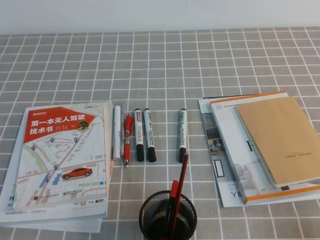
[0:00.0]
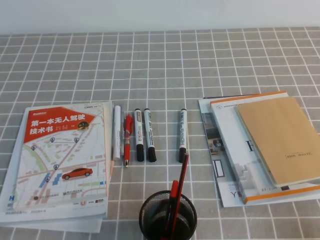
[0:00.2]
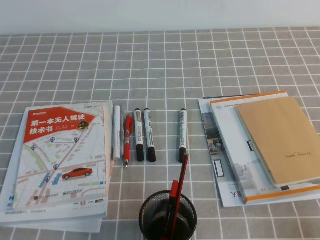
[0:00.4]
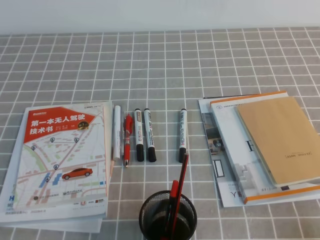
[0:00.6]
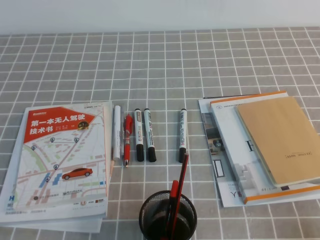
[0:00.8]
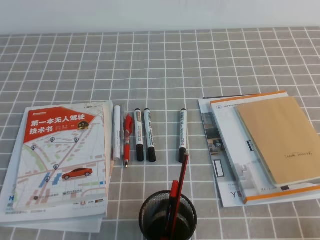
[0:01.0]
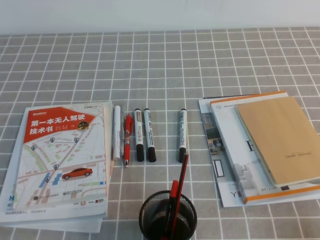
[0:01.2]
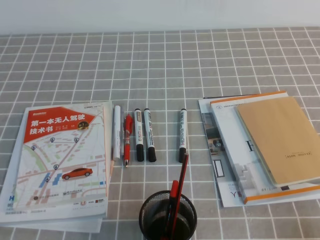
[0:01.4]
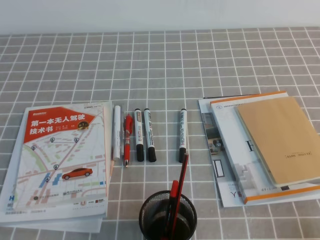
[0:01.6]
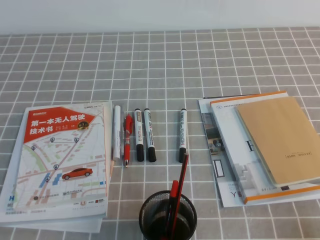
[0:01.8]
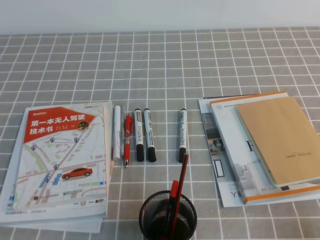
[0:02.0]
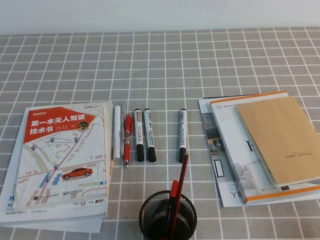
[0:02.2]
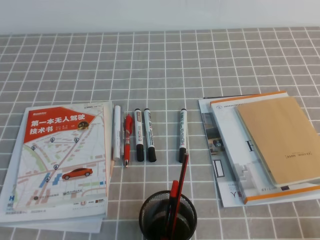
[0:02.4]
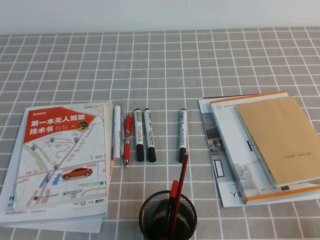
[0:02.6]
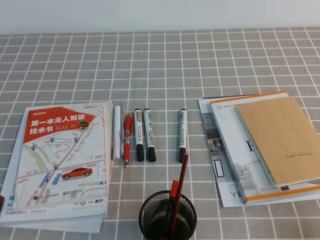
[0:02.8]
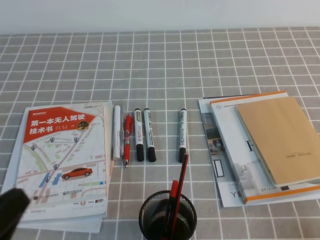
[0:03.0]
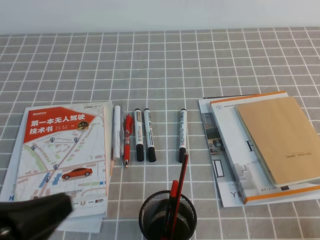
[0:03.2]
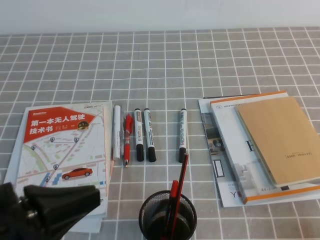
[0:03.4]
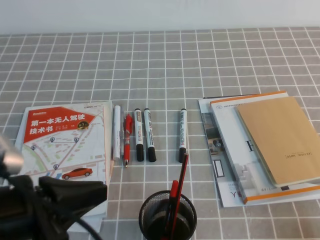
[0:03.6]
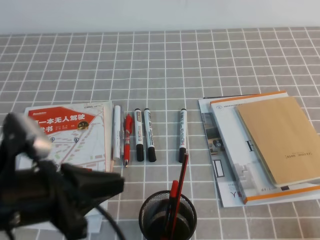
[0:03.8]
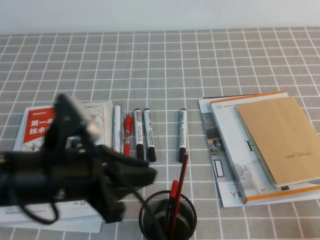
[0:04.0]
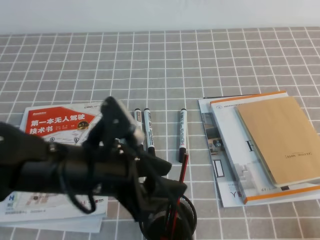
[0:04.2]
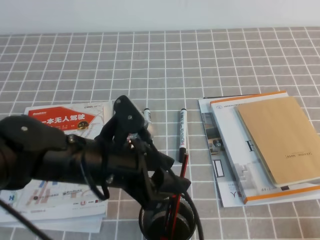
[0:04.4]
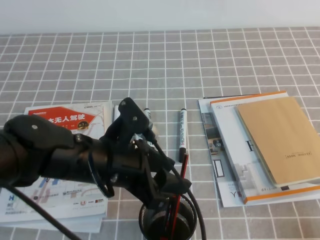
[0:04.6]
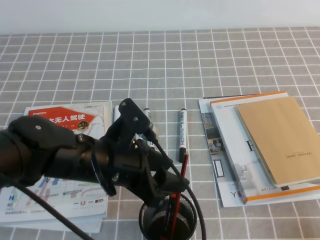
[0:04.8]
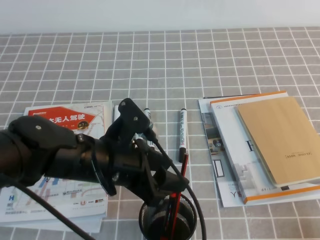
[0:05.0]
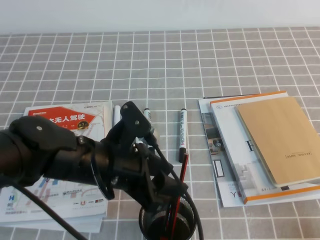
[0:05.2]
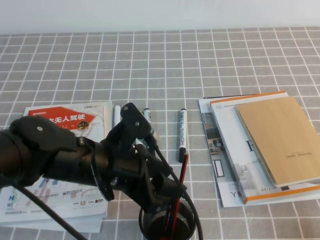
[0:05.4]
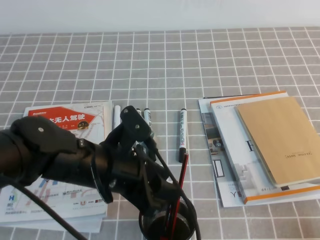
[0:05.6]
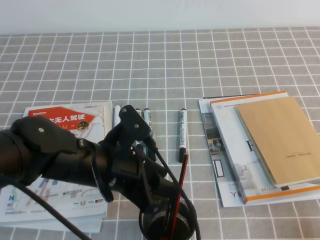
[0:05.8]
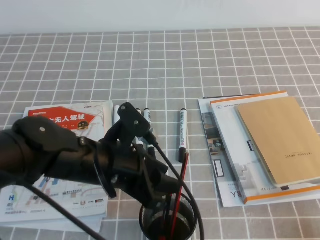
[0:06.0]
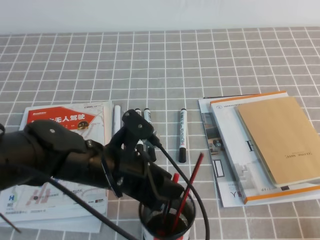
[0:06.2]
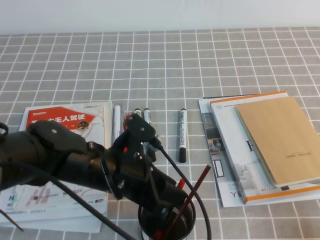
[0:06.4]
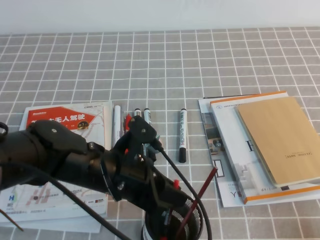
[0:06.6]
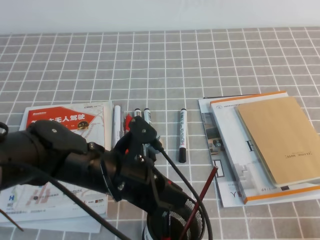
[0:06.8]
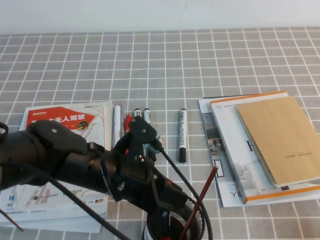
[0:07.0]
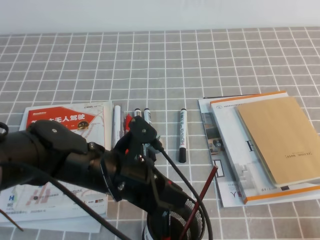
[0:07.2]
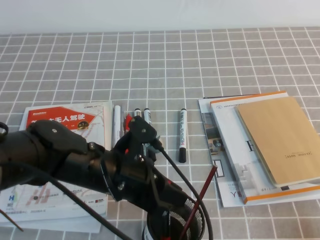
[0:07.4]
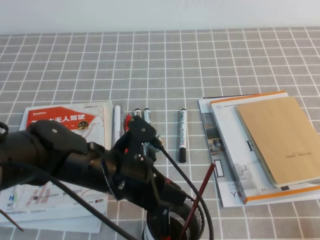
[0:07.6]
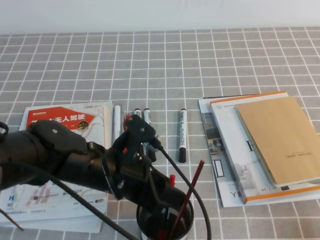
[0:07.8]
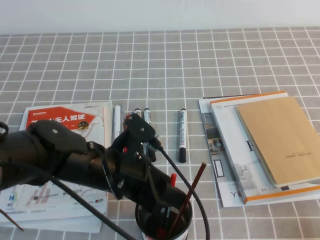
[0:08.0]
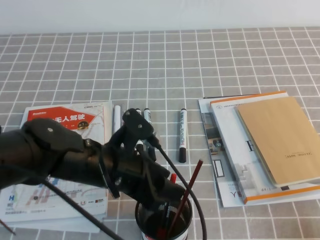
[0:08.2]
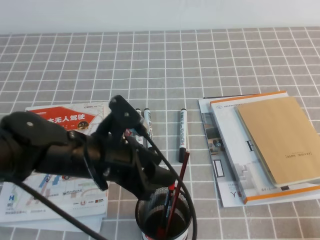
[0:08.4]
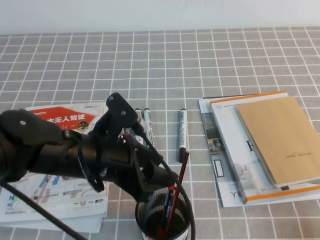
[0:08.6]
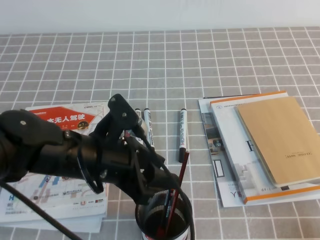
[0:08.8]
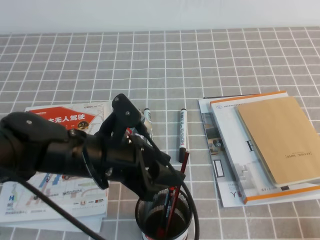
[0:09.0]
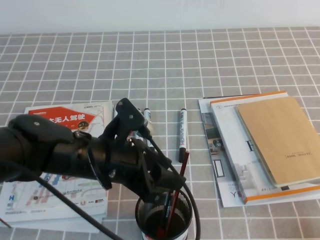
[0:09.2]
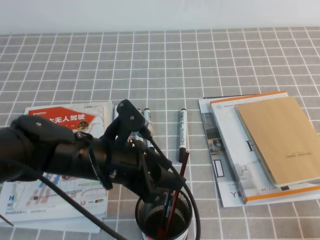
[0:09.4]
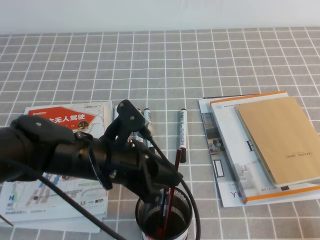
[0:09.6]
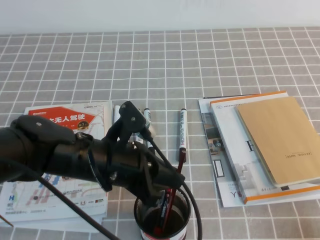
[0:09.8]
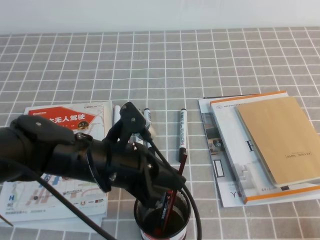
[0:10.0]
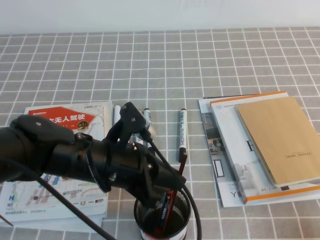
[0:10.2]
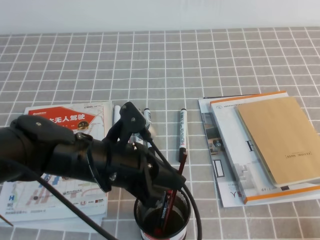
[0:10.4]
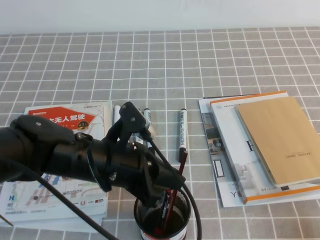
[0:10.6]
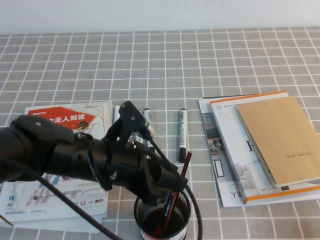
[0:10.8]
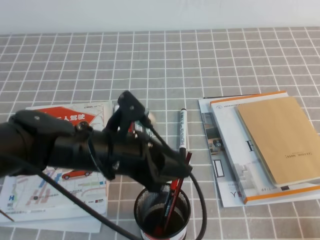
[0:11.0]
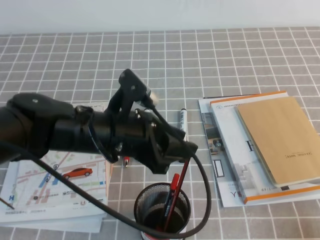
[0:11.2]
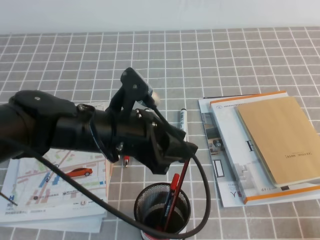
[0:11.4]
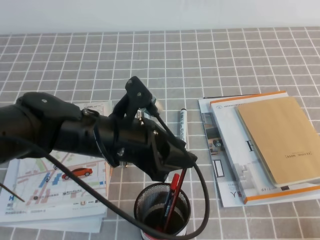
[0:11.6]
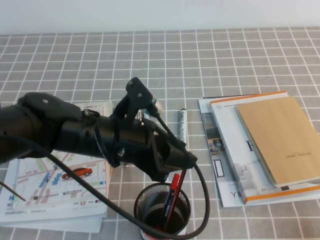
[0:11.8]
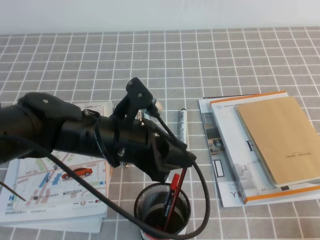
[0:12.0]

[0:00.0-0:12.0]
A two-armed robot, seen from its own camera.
0.0 to 1.6 s: Both grippers stay about where they are.
1.6 to 3.0 s: The left gripper shifts about 10 cm upward.
3.0 to 4.4 s: The left gripper travels forward and to the right by approximately 20 cm, and opens its fingers.
4.4 to 6.0 s: The grippers move only a little.
6.0 to 7.6 s: The left gripper closes up.
7.6 to 9.0 s: The left gripper opens.
9.0 to 10.4 s: The left gripper closes up.
10.4 to 12.0 s: The left gripper opens.

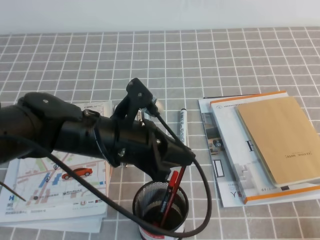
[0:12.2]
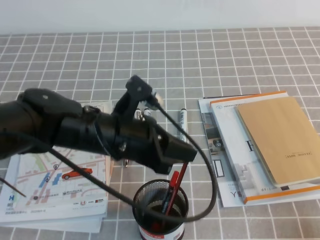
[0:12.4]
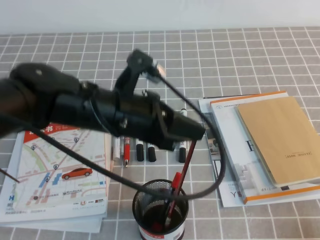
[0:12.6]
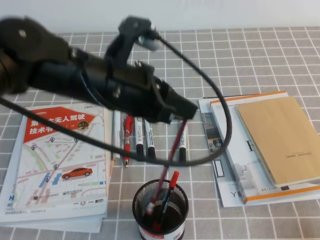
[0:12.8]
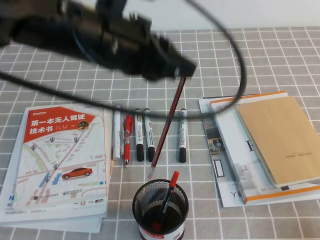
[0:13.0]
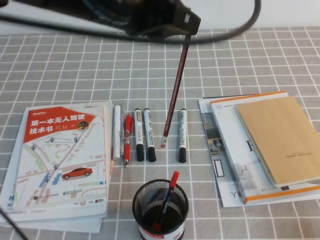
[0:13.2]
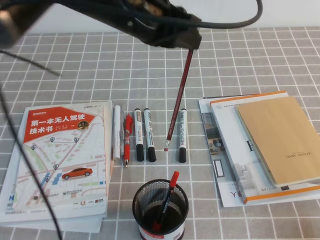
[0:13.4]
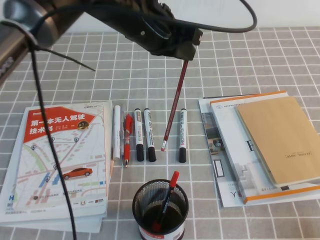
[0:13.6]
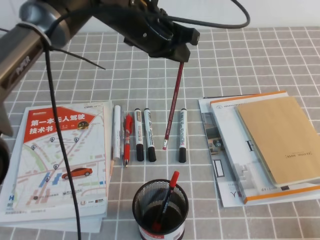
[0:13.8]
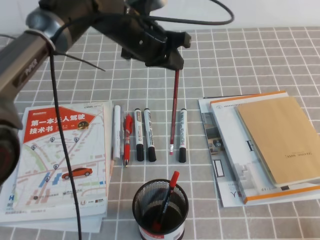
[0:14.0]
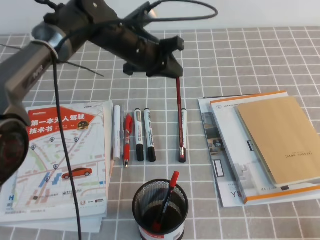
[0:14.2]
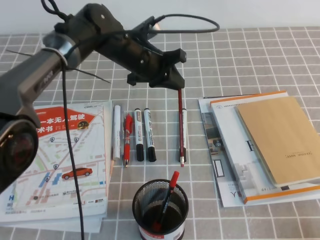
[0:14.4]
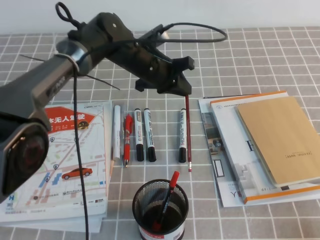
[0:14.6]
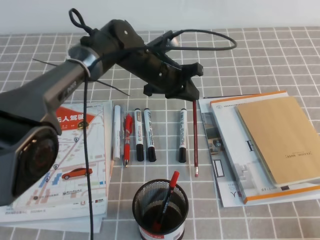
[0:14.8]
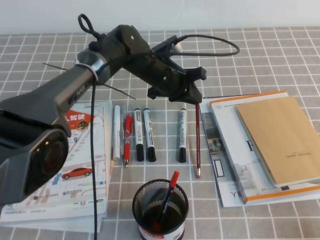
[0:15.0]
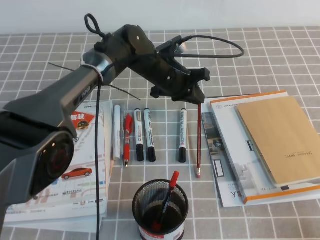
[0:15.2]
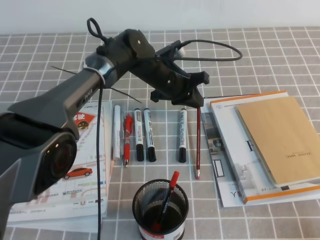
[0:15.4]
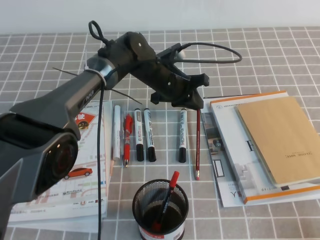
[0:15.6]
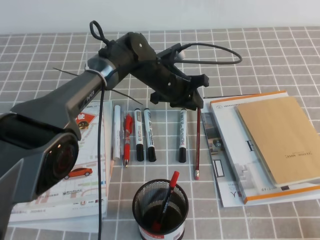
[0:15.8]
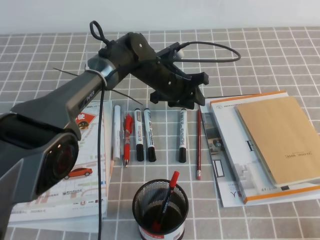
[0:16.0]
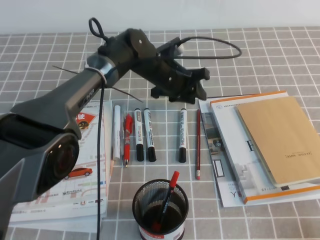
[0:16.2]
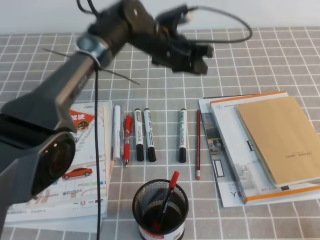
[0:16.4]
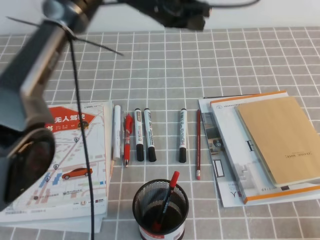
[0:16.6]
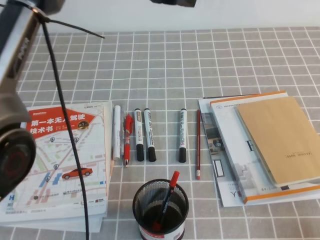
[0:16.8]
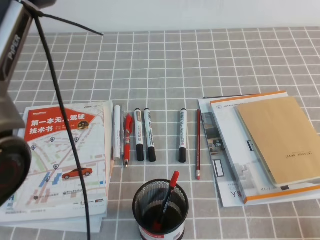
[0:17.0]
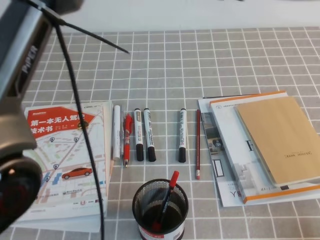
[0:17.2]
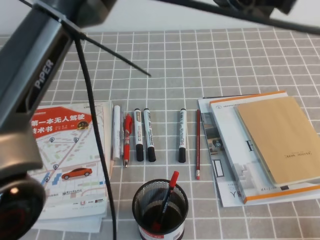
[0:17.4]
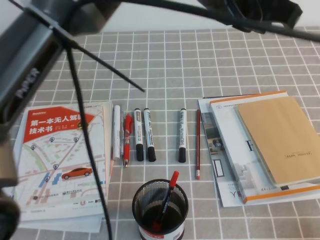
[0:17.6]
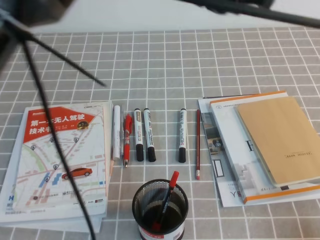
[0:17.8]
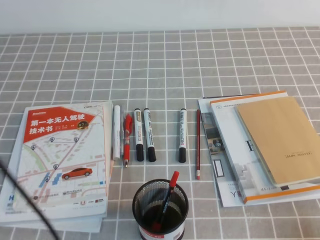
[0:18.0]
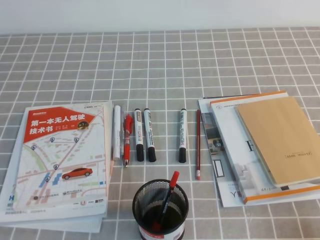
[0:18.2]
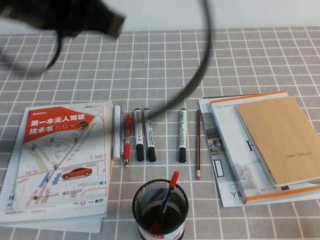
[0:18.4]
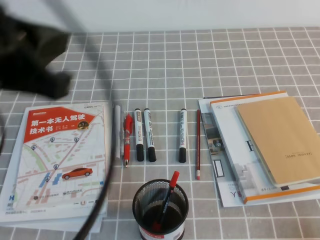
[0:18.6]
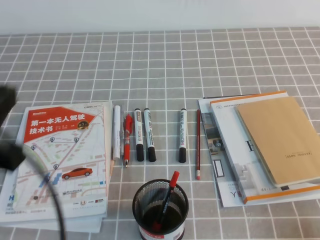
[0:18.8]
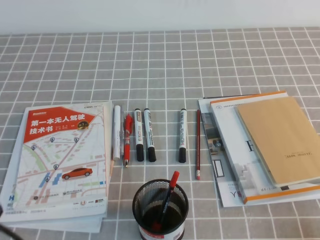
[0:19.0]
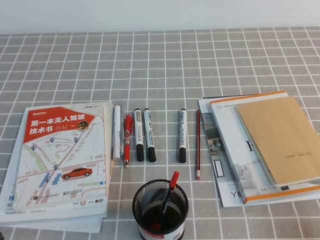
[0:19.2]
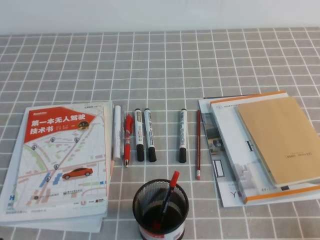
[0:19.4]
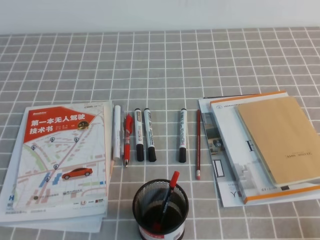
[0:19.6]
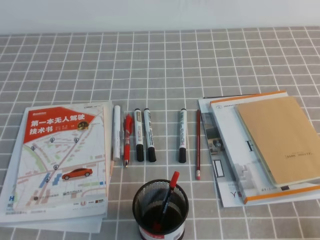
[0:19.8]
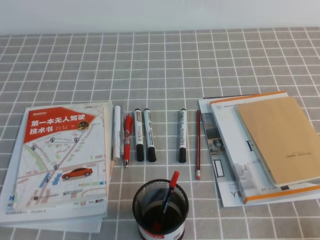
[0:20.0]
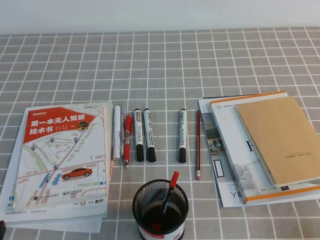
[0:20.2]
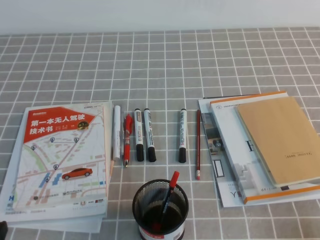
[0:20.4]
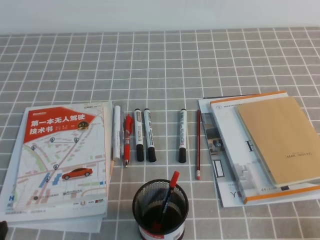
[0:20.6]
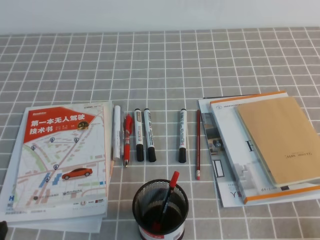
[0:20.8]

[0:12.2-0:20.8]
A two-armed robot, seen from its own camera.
Step, 12.2 to 20.8 s: Pick up the pen from the pen holder.
12.2 to 13.6 s: The left gripper goes approximately 15 cm upward and forward.
13.6 to 15.0 s: The left gripper moves downward and forward, roughly 15 cm.
15.0 to 16.6 s: The left gripper travels upward by roughly 15 cm, and opens, then closes once more.
16.6 to 18.0 s: The left gripper is displaced backward and upward by roughly 25 cm.
18.0 to 19.4 s: The left gripper goes about 40 cm downward, to the left and backward.
19.4 to 20.8 s: The left gripper travels downward by roughly 5 cm.

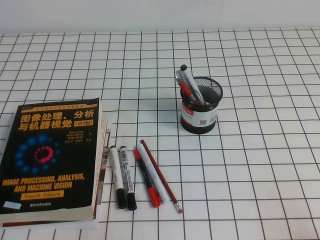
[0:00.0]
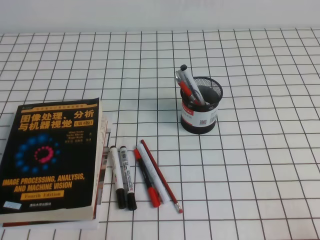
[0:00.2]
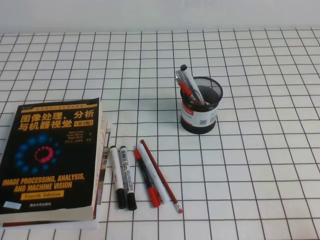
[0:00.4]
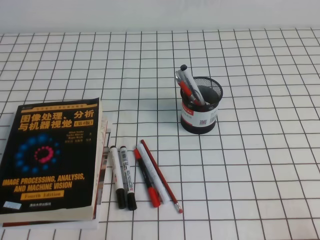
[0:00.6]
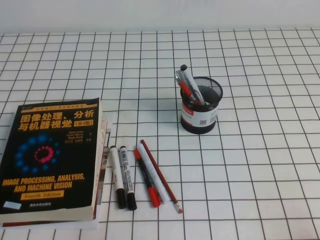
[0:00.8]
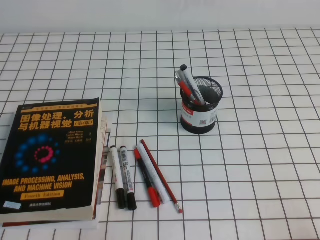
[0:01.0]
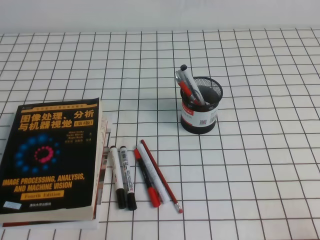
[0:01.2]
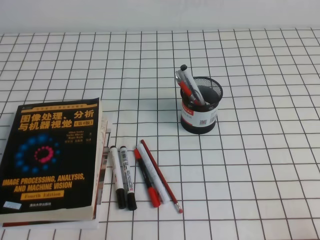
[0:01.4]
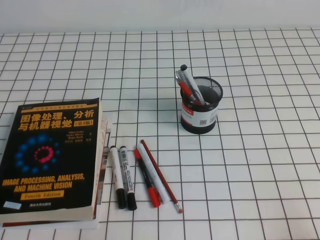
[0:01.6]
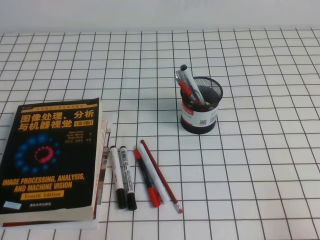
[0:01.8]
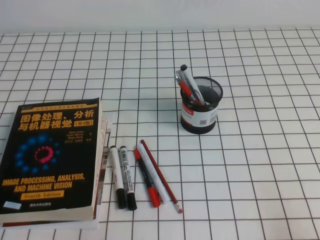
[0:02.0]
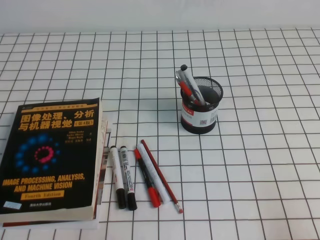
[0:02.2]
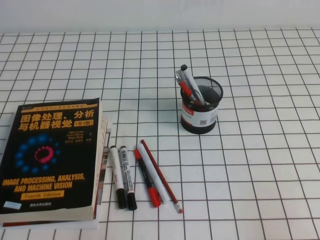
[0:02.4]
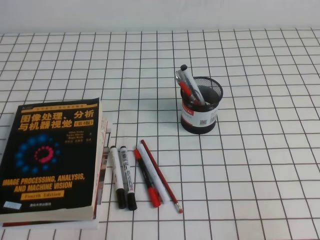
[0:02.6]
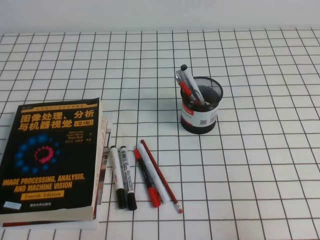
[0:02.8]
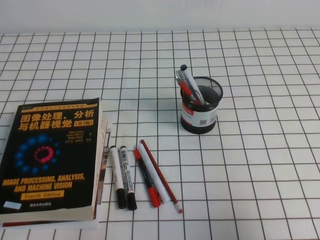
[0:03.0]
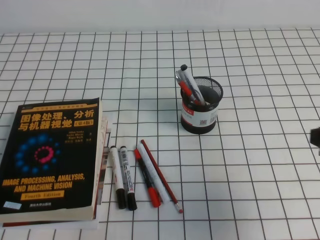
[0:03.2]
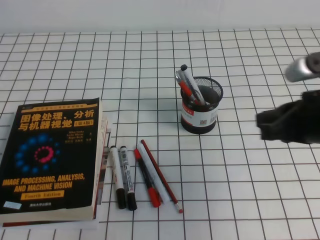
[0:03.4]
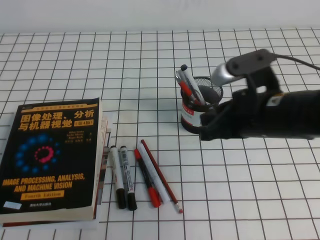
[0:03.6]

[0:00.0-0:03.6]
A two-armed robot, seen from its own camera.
1.8 to 3.6 s: The right gripper heads forward, to the left and upward, covering some 25 cm.
